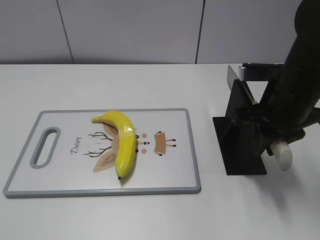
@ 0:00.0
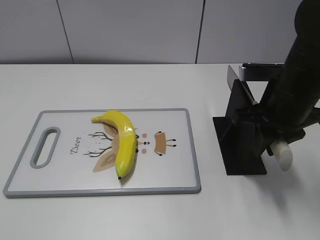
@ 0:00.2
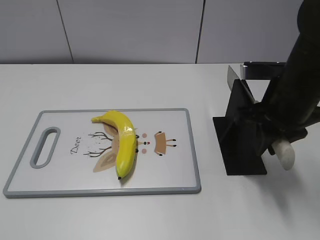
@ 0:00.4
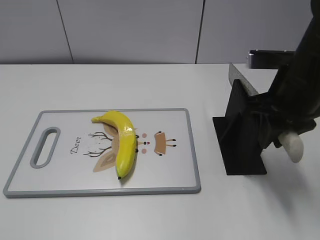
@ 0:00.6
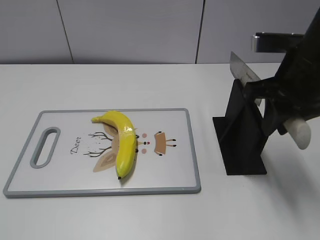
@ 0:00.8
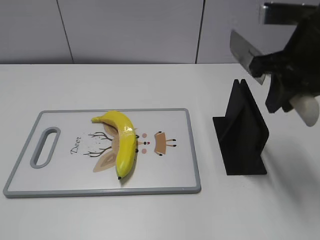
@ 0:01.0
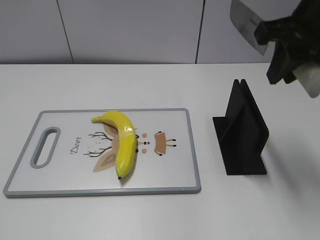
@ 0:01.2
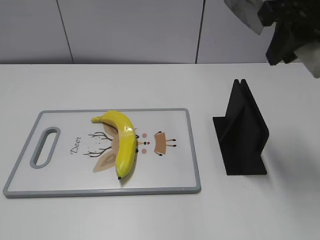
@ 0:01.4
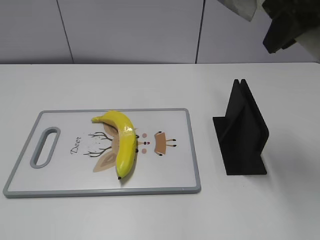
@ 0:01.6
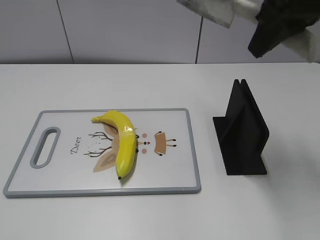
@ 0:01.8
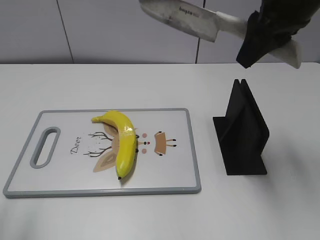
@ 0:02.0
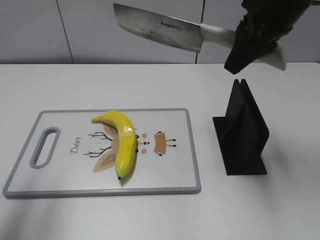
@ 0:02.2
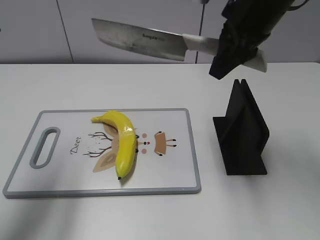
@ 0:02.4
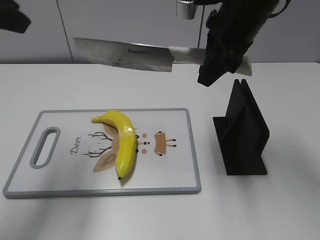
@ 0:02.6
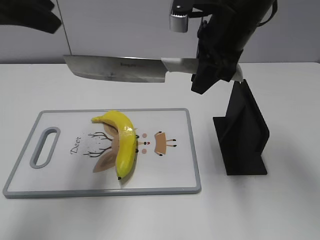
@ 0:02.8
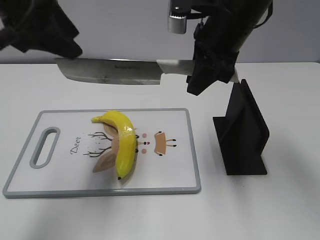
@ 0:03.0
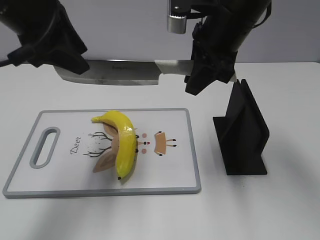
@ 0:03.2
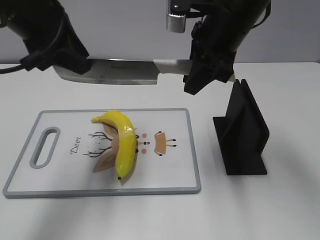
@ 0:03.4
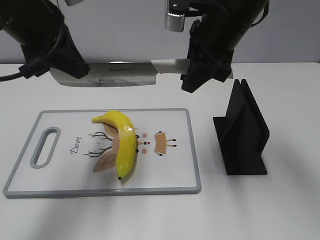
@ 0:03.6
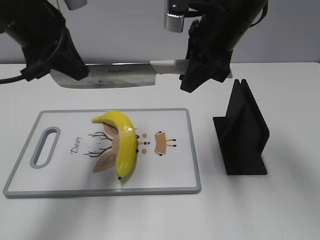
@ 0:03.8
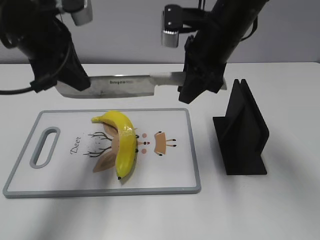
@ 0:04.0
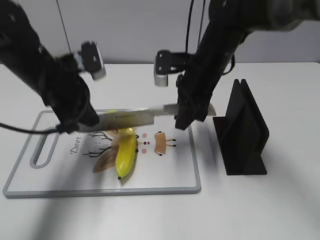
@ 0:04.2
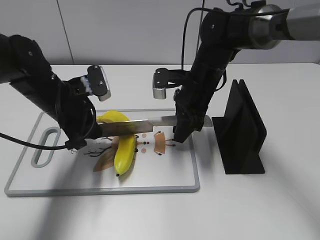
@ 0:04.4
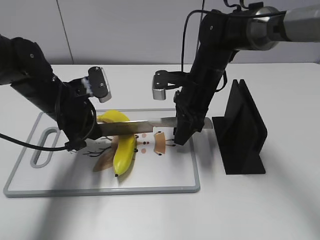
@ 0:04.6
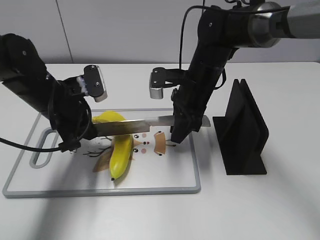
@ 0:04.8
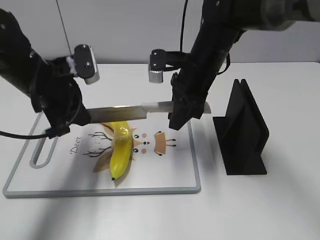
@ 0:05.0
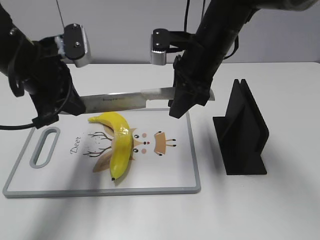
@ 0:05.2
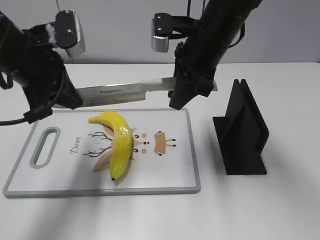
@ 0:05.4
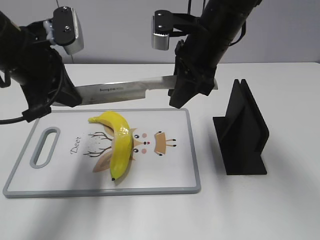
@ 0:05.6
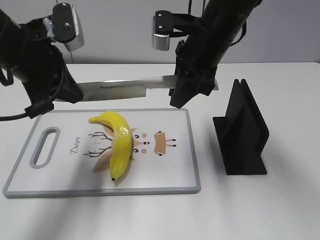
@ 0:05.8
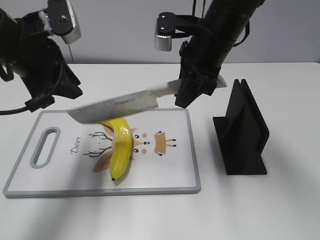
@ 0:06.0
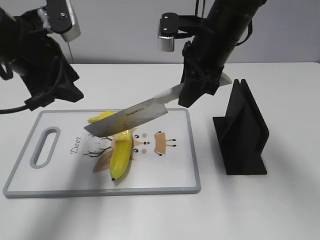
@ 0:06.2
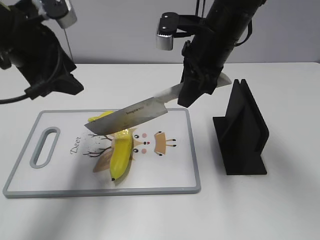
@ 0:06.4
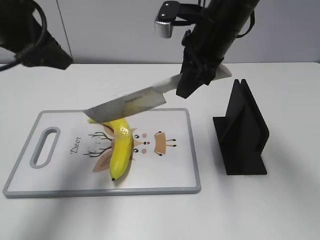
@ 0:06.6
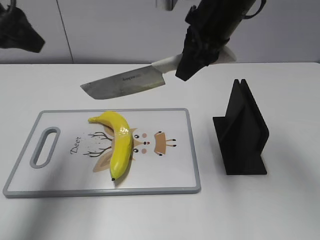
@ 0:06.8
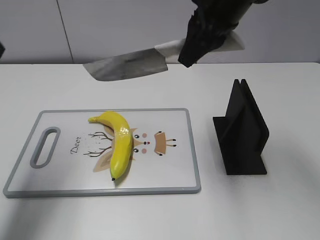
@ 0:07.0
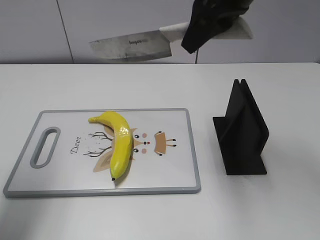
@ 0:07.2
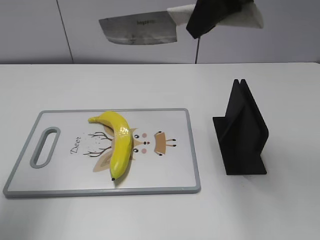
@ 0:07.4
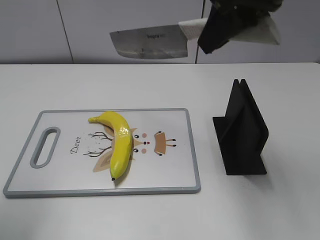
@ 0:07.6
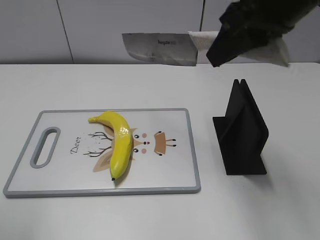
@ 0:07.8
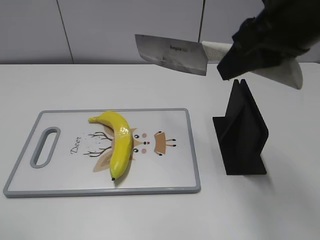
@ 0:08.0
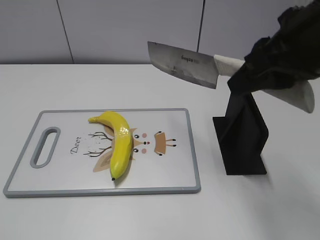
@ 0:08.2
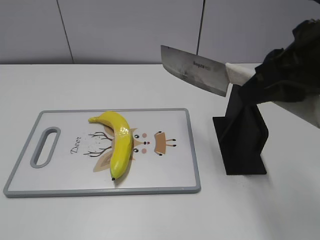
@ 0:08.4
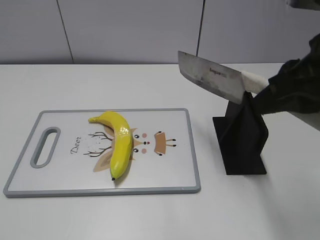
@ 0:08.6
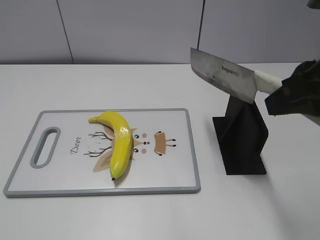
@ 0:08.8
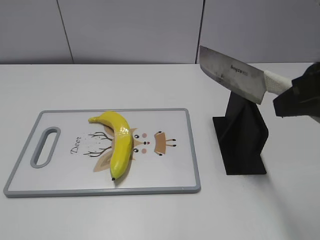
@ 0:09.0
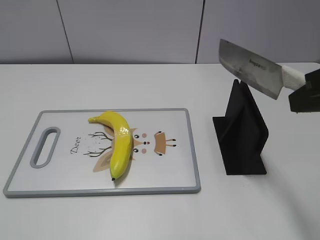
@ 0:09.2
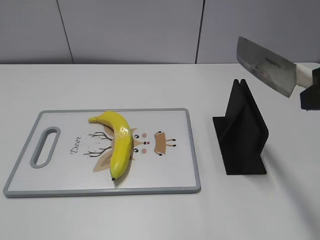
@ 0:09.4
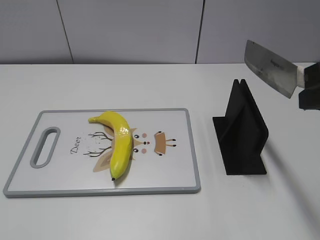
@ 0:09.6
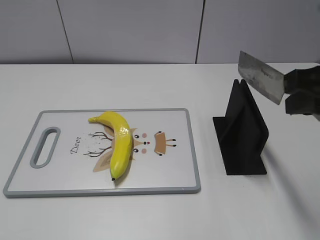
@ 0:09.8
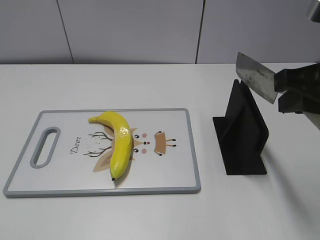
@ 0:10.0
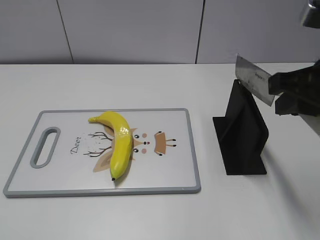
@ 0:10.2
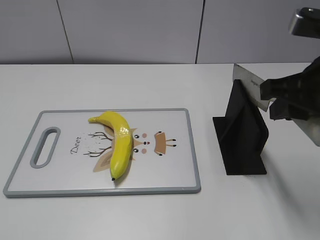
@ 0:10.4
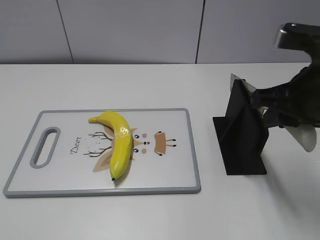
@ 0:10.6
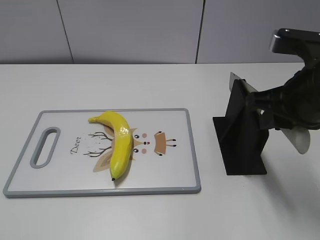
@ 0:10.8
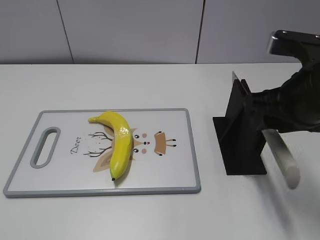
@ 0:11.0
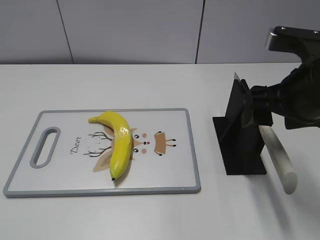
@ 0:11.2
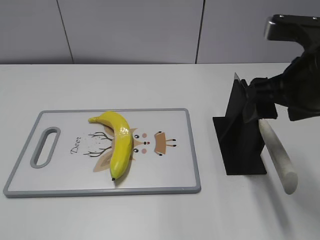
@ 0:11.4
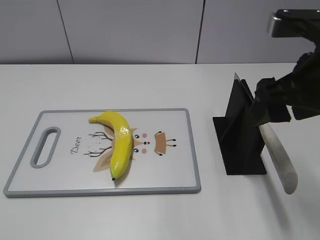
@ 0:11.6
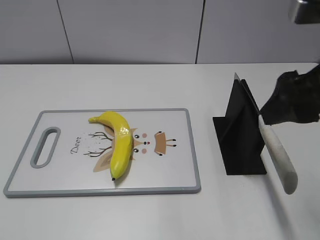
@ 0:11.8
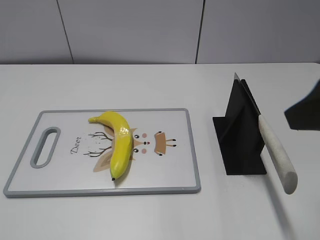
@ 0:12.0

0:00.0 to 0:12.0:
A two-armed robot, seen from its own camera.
Task of the whole recording: cut plastic banana.
Step, 0:01.0 to 0:05.6: Lift the knife with your right hand.
Step, 0:05.8 to 0:06.6: Cut the banana with your right hand.
Step, 0:06.8 to 0:08.0: Lift the knife with your right hand.
0:00.0 to 0:01.6: The right gripper shifts about 15 cm upward.
0:01.6 to 0:03.0: The right gripper goes roughly 15 cm downward, to the left and forward. Meanwhile the left gripper is displaced forward by roughly 30 cm.
0:03.0 to 0:04.4: The two grippers go roughly 20 cm downward. The left gripper closes its fingers.
0:04.4 to 0:06.0: Both grippers travel together upward, some 15 cm. The left gripper opens.
0:06.0 to 0:07.6: The left gripper heads backward, upward and to the left, covering about 20 cm, and opens its fingers. The right gripper travels upward and backward by some 15 cm.
0:07.6 to 0:09.0: The left gripper travels backward and downward by about 20 cm. The right gripper shifts some 15 cm backward and to the right.
0:09.0 to 0:10.4: The right gripper moves approximately 5 cm.
0:10.4 to 0:12.0: The right gripper travels upward and backward by about 5 cm, and opens its fingers.
